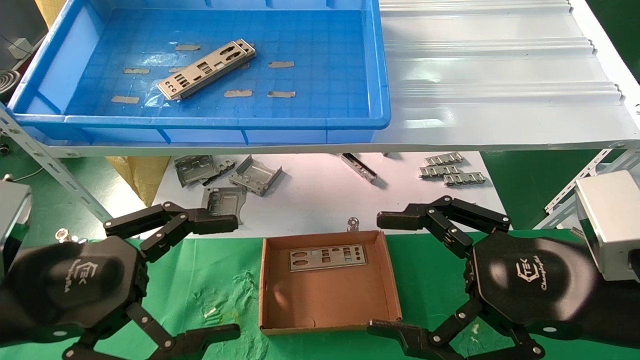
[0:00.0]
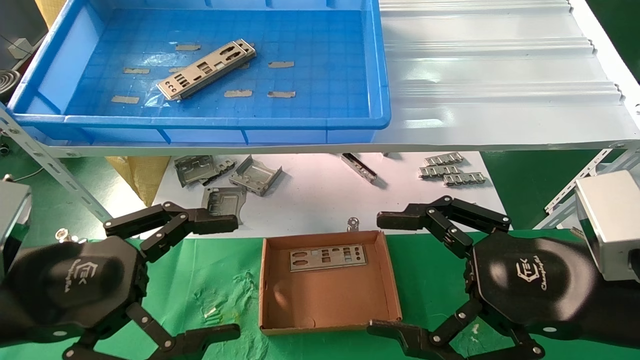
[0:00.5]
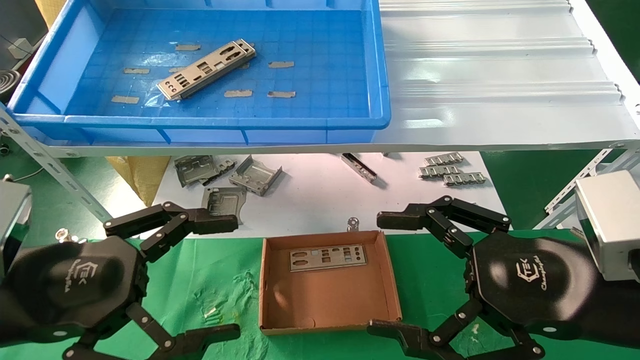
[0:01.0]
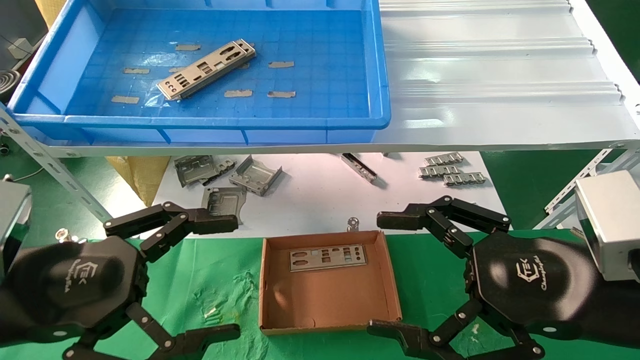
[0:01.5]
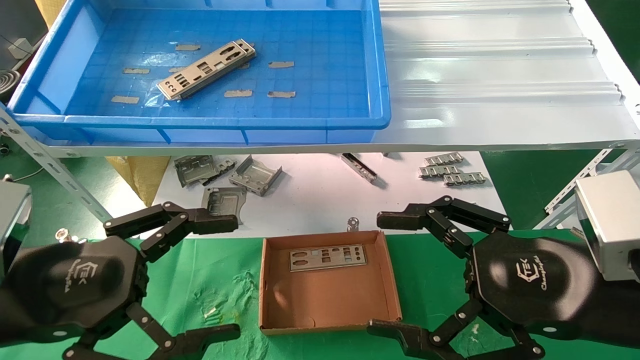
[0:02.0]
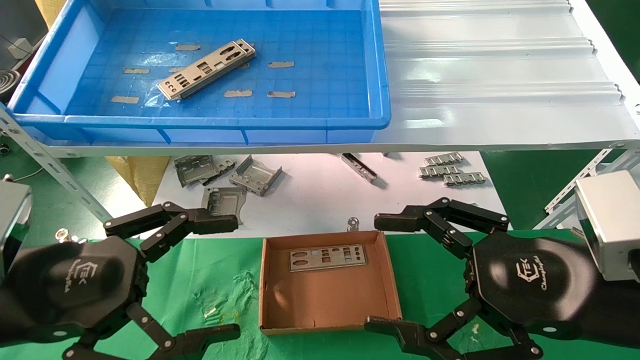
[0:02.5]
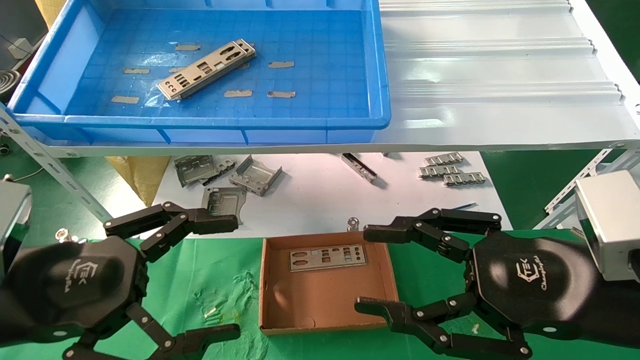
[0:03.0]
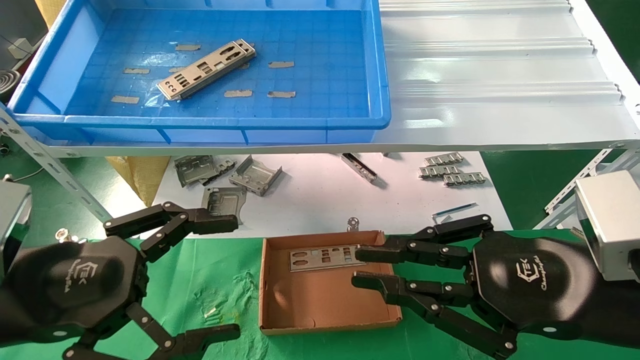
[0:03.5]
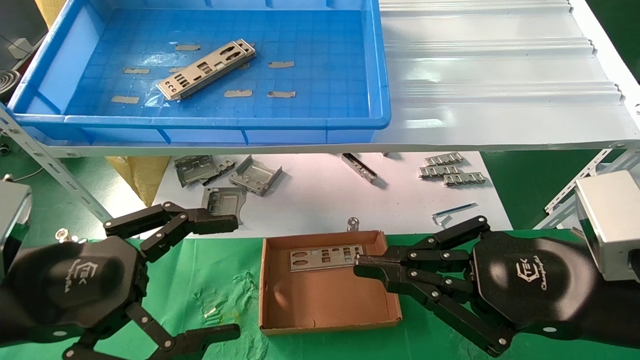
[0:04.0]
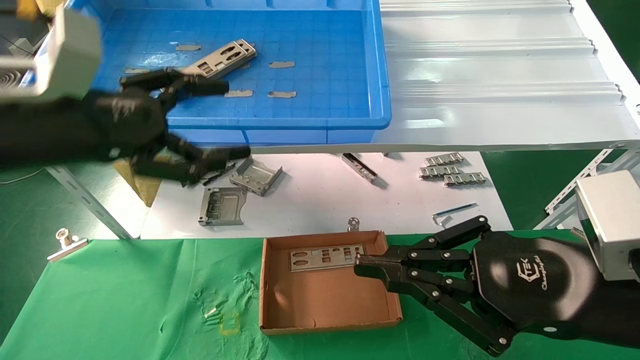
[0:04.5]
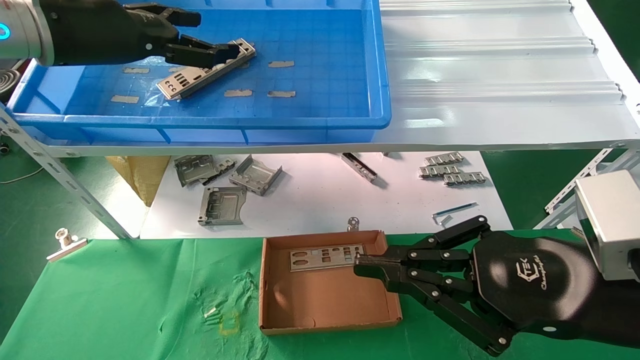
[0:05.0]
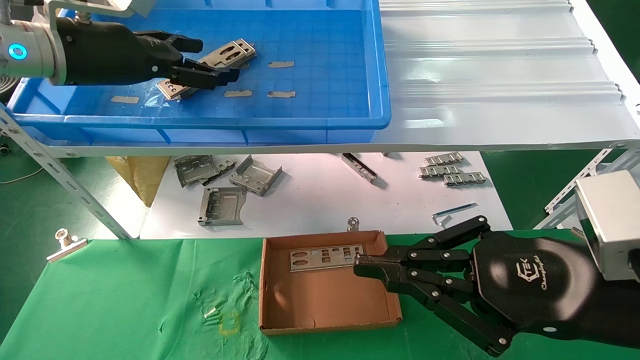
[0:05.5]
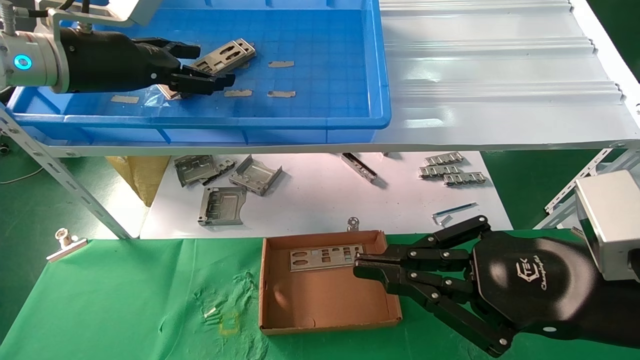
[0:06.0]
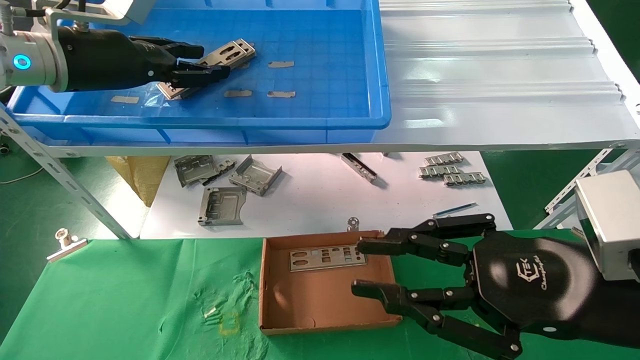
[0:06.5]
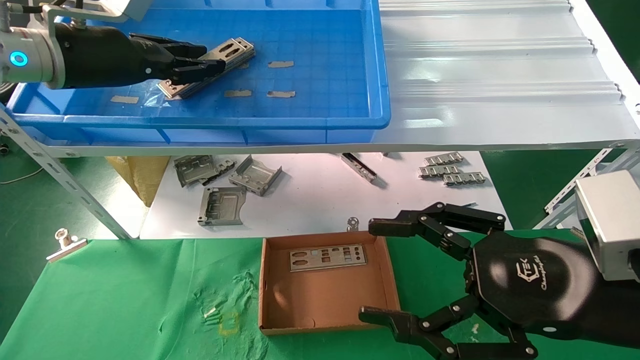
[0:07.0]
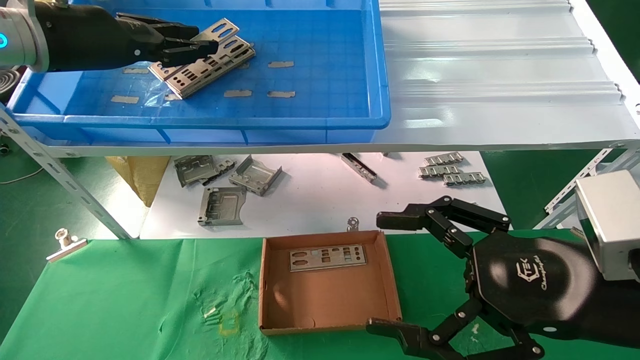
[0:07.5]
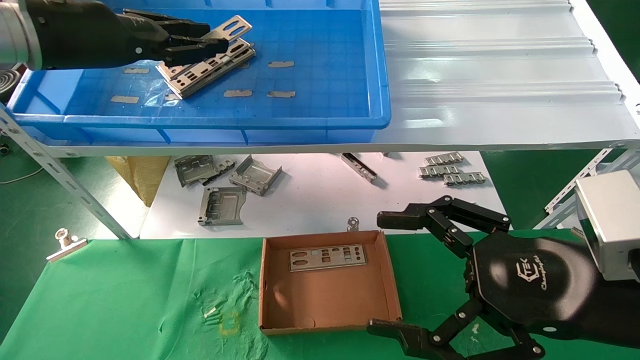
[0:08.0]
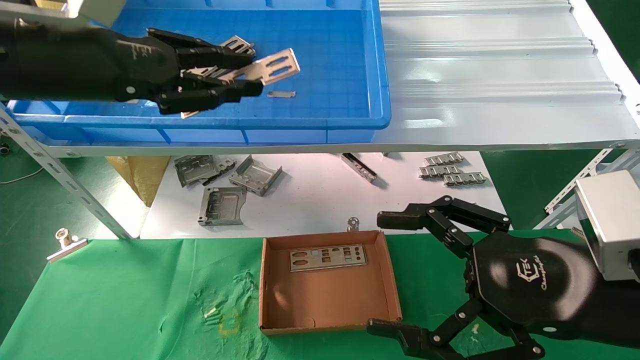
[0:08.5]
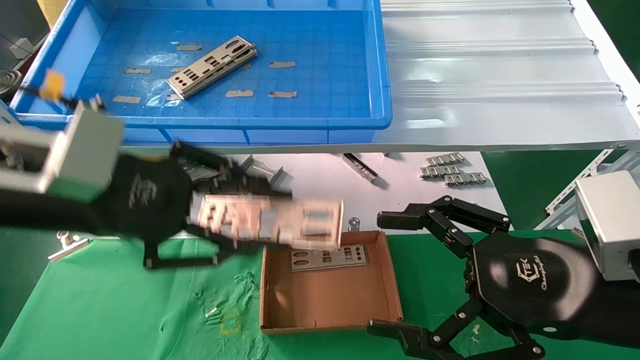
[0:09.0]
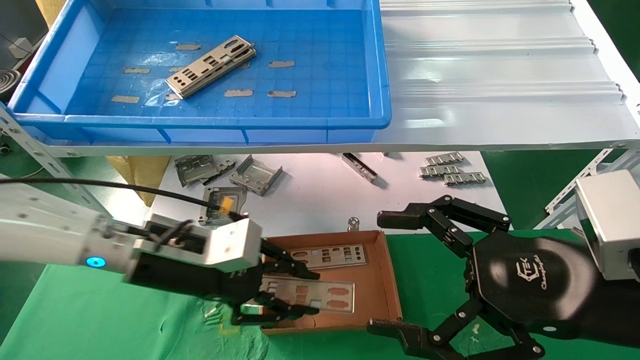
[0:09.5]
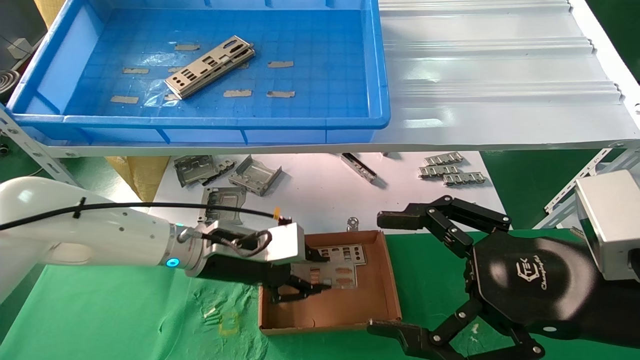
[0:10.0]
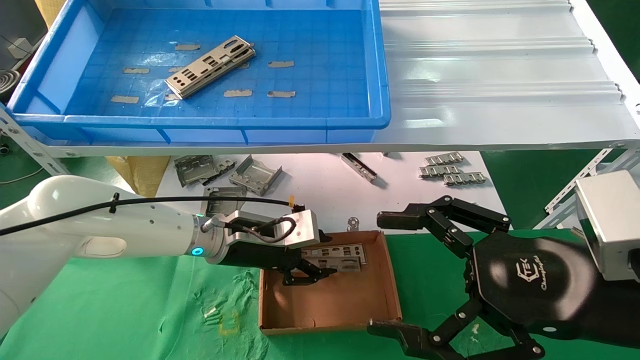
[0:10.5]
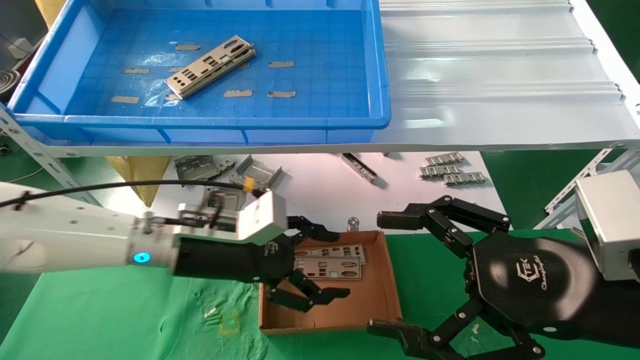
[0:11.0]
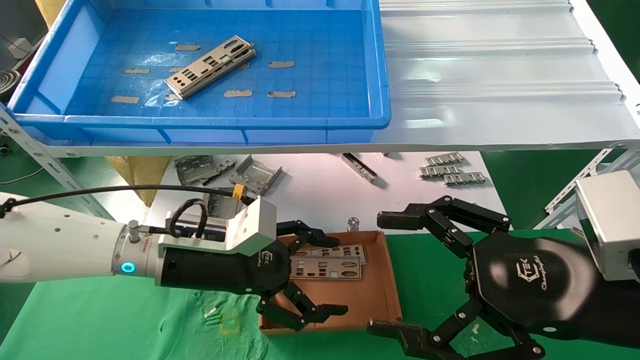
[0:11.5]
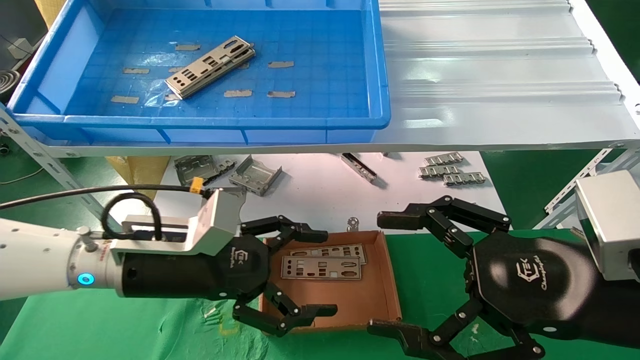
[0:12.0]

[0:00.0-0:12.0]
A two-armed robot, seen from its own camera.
Task of the whole recording: pick up the parts on the tray and put them in the cardboard box.
Step, 0:03.5 to 0:07.0: Pick up the IO bracket from the container box.
Step, 0:07.5 to 0:10.5: Place the IO bracket into the ingredient slot.
0:00.0 to 0:02.0: Both grippers stay put.
0:02.0 to 0:04.0: The right gripper closes.
0:04.0 to 0:06.0: The left gripper moves forward and upward, approximately 25 cm.
0:06.0 to 0:08.0: The right gripper opens its fingers. Meanwhile the left gripper closes up.
0:08.0 to 0:10.0: The left gripper travels downward and to the right by roughly 30 cm.
0:10.0 to 0:12.0: The left gripper goes about 10 cm backward, and opens its fingers.

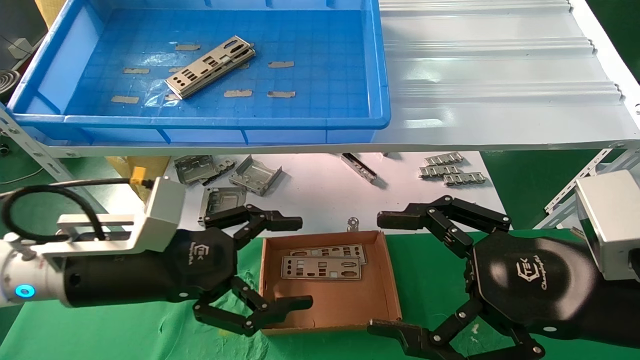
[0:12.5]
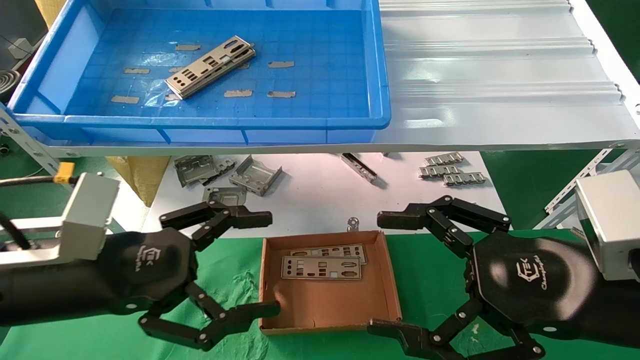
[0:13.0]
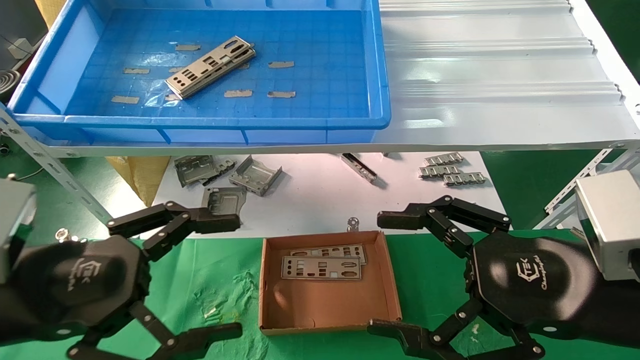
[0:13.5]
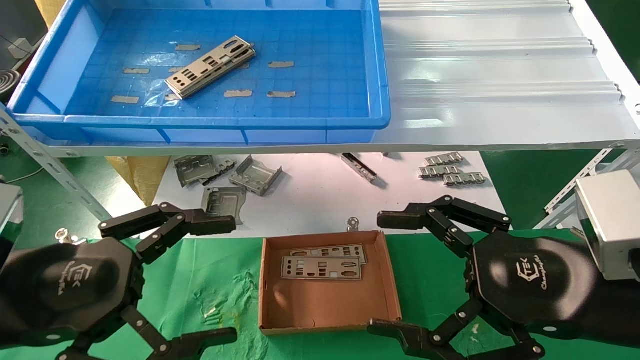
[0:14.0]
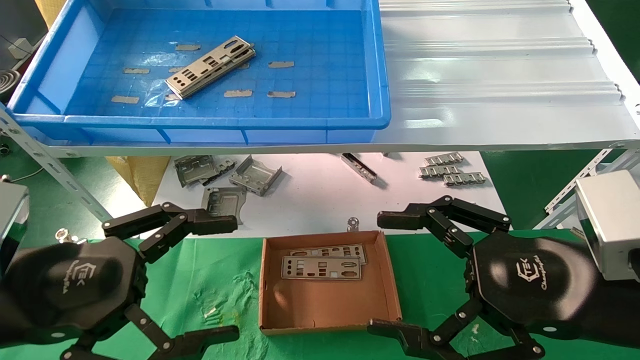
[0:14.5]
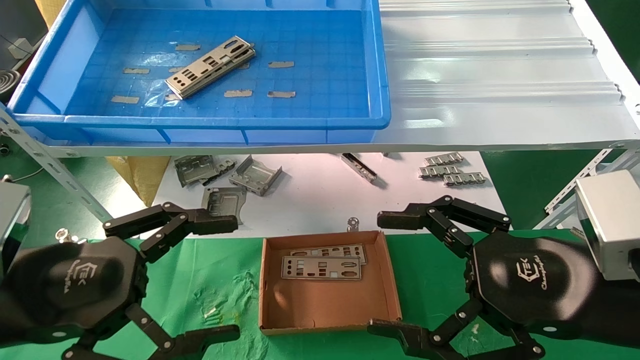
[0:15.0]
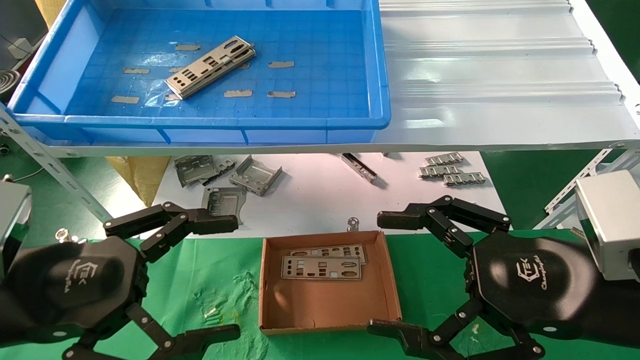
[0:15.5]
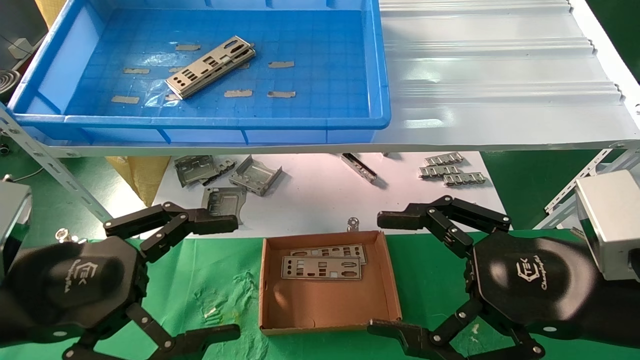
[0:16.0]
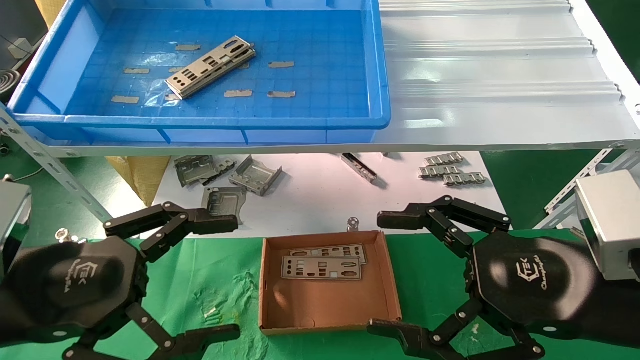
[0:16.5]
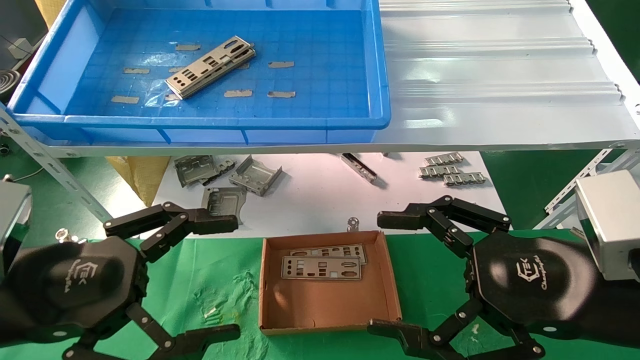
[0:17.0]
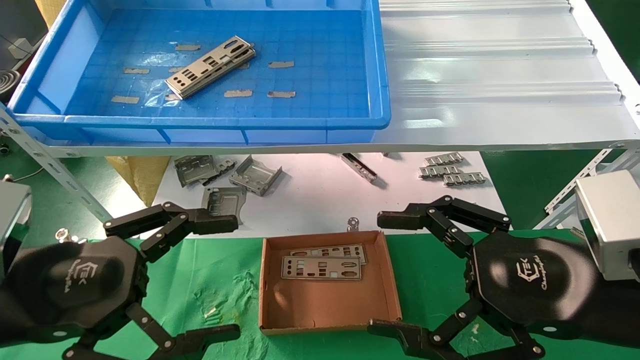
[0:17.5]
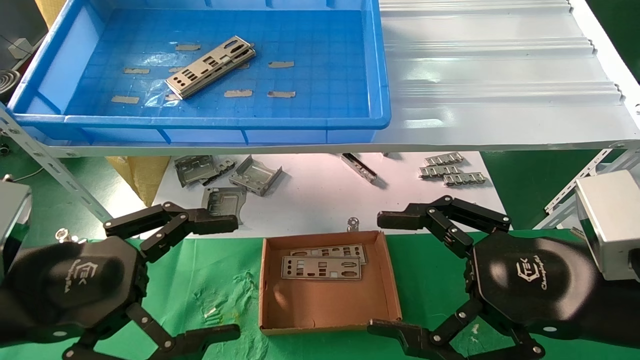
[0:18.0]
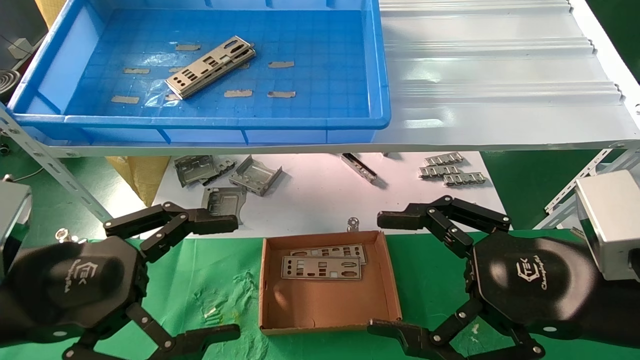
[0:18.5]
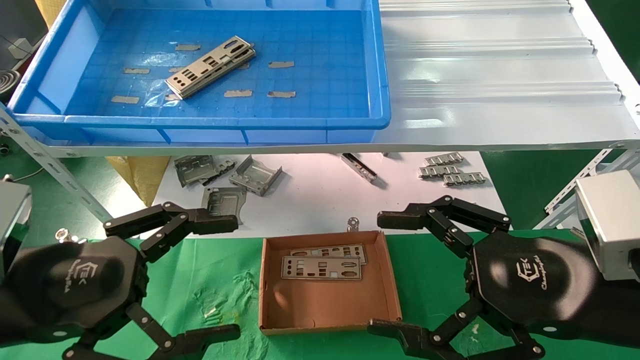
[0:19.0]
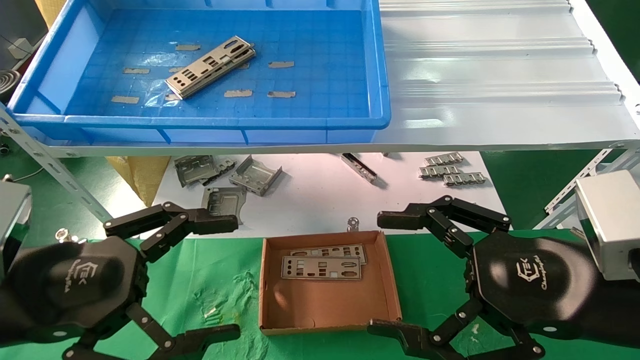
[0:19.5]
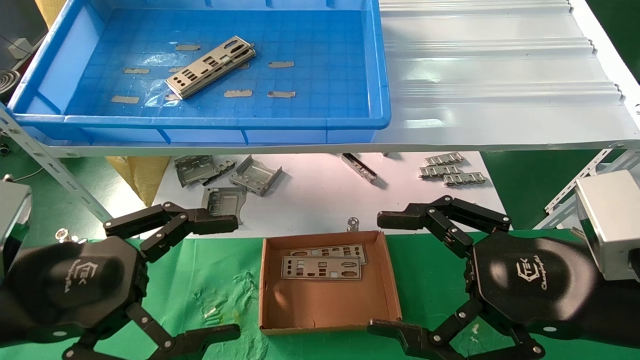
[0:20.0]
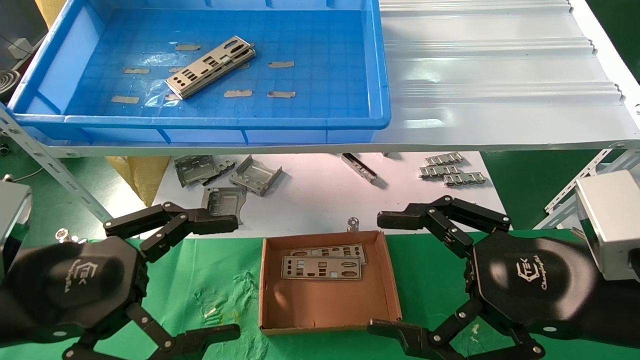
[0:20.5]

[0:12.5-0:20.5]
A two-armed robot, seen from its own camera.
Task of the whole recording: pick up the parts on the tray and put them in the cardboard box.
0:12.5 to 0:14.5: The left gripper shifts roughly 10 cm backward and to the left.
0:14.5 to 0:20.5: Both grippers stay put.
